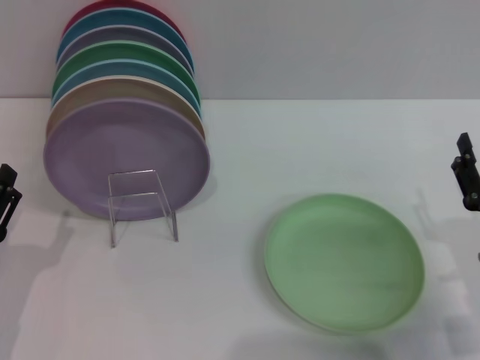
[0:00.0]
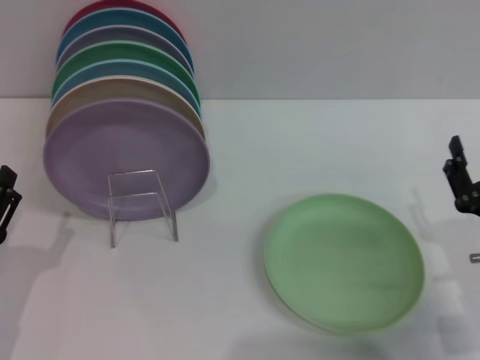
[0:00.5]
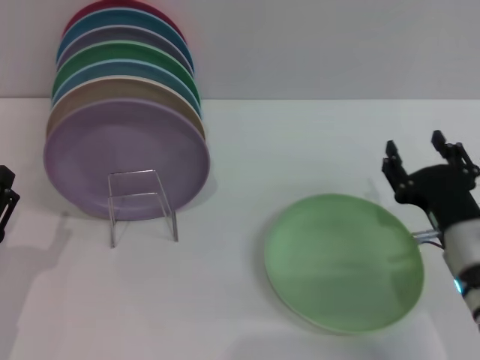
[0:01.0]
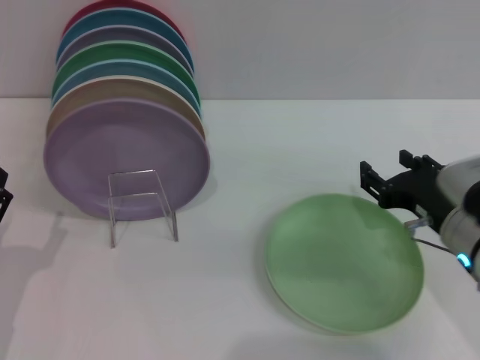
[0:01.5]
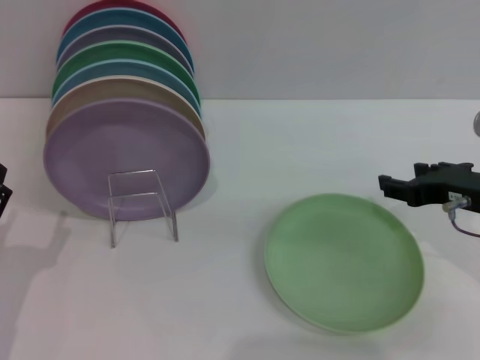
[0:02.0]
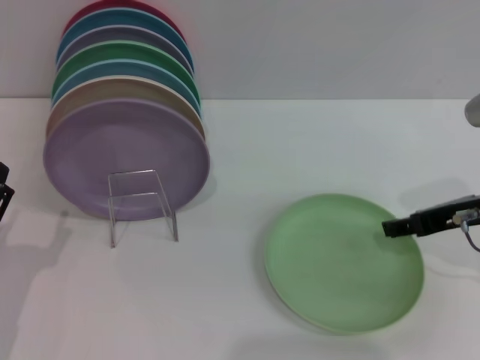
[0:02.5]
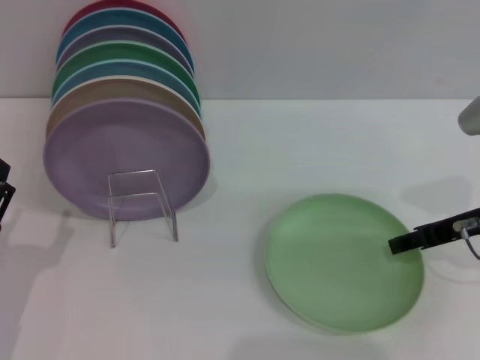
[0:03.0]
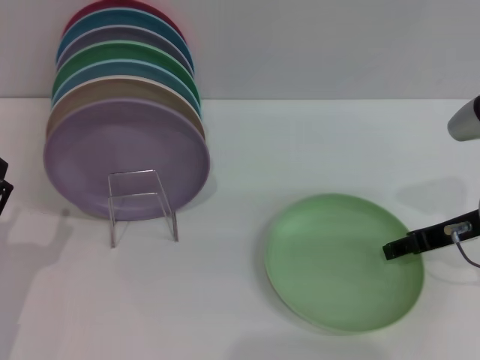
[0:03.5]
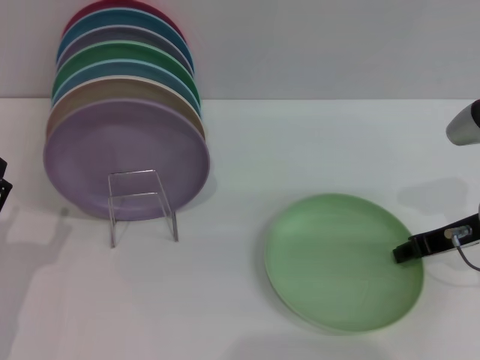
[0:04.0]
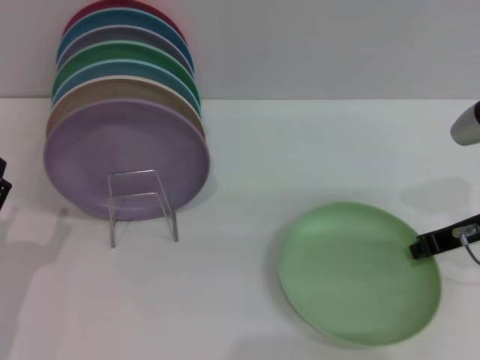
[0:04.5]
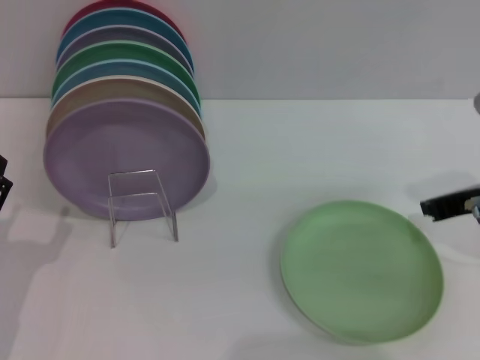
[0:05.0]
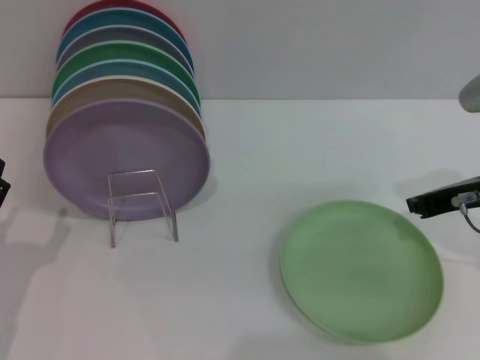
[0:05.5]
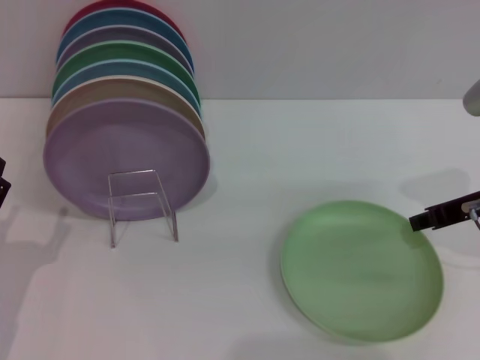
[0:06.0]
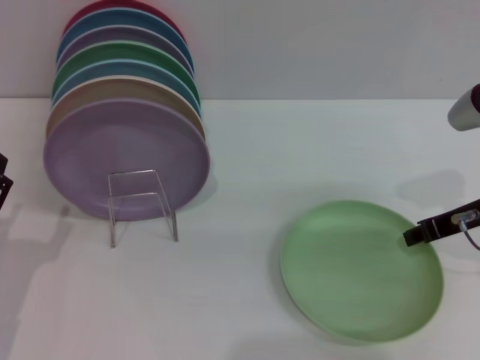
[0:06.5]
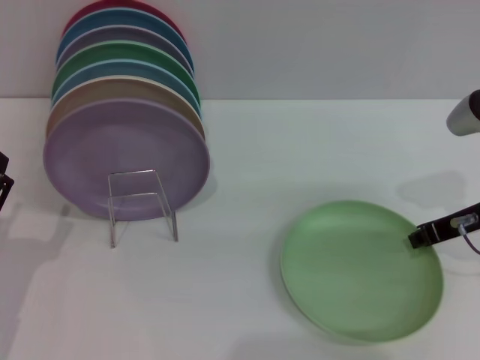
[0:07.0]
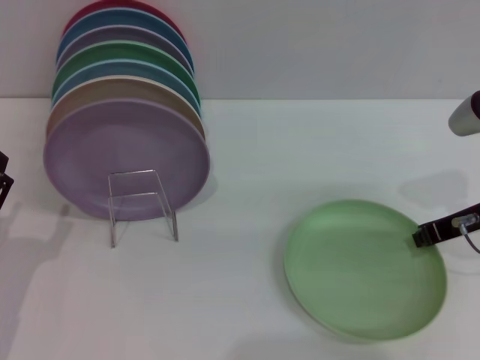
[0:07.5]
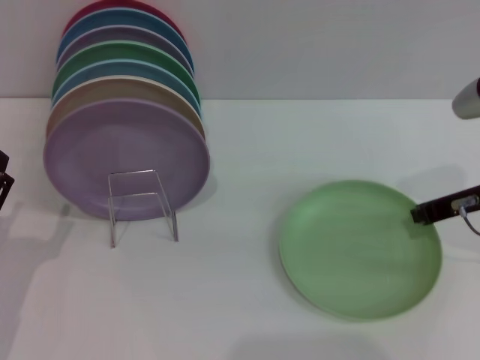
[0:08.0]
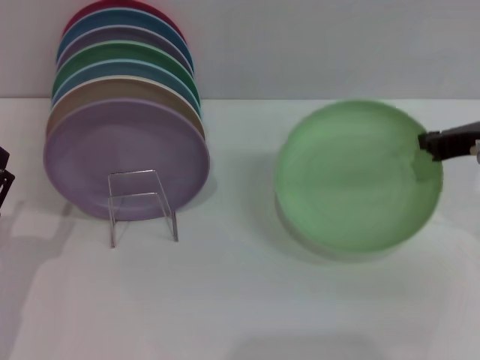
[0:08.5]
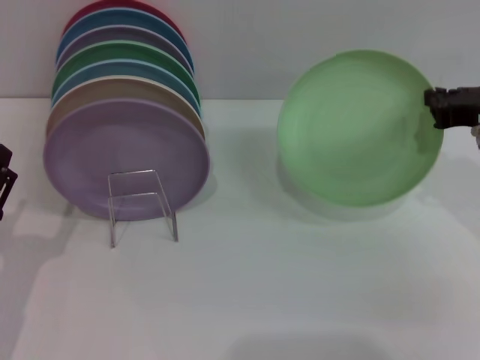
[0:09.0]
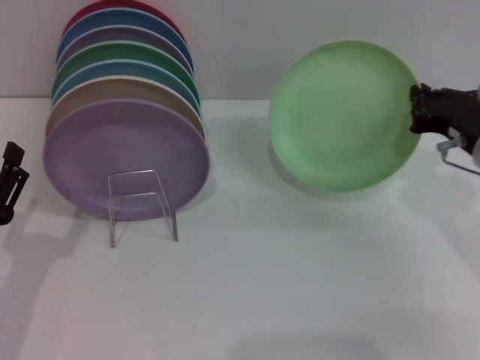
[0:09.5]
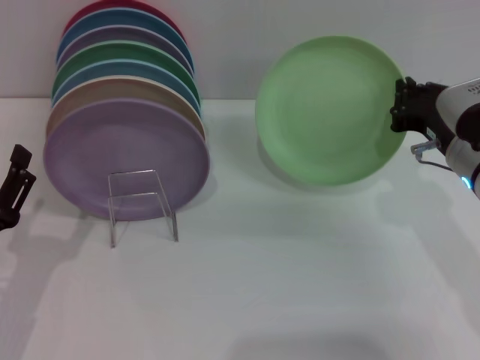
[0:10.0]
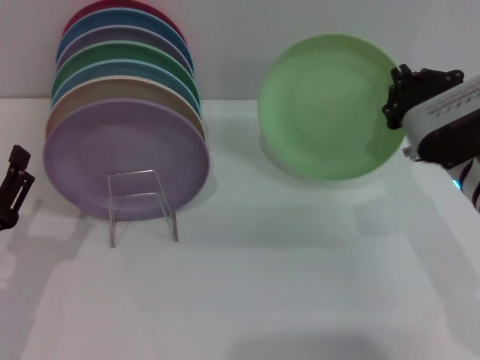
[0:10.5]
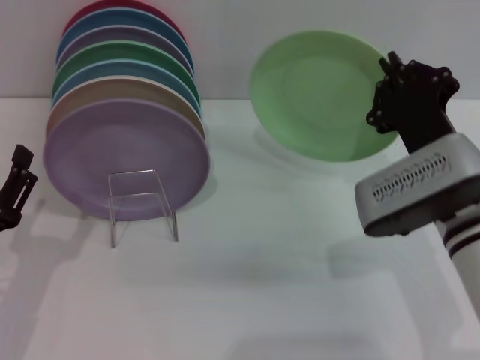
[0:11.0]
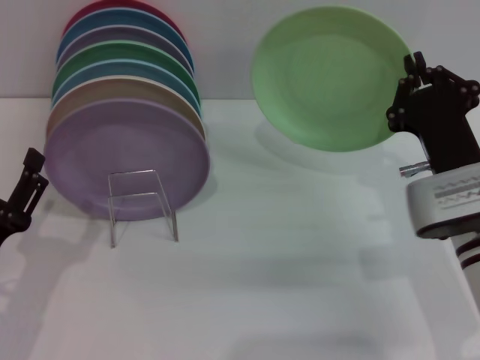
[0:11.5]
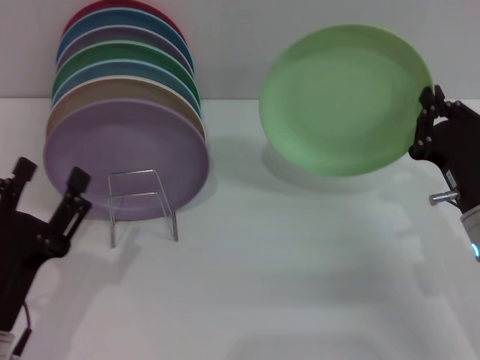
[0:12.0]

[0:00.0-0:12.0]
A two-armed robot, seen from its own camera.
Task of the whole recording: Grip the plate with one hand, pass it to the other, then set it on the shelf.
Step, 0:00.0 to 0:08.5: Pick up the plate with the right gripper.
0:00.0 to 0:02.0: The right gripper travels upward and forward by roughly 15 cm.
0:04.0 to 0:06.0: The right gripper closes, then opens again.
0:06.0 to 0:08.0: The right gripper closes.
0:10.0 to 0:12.0: The right gripper moves downward, some 5 cm.

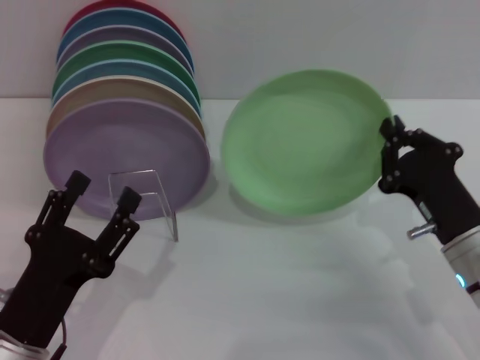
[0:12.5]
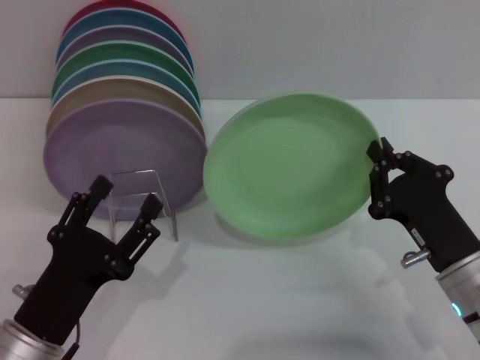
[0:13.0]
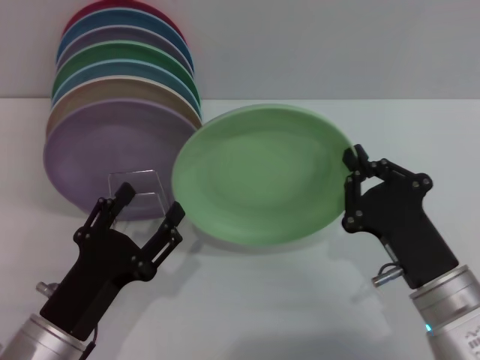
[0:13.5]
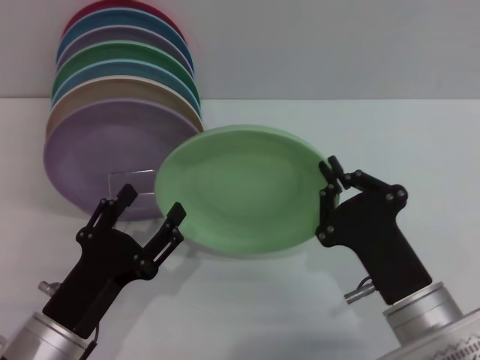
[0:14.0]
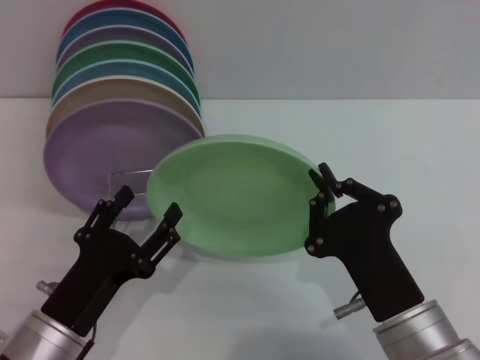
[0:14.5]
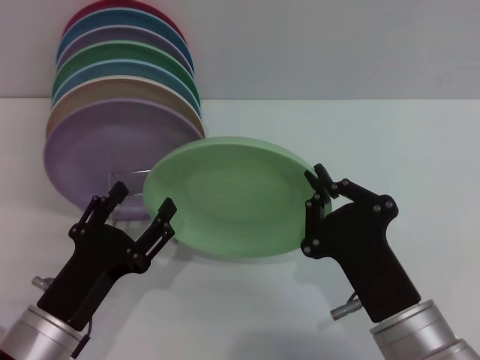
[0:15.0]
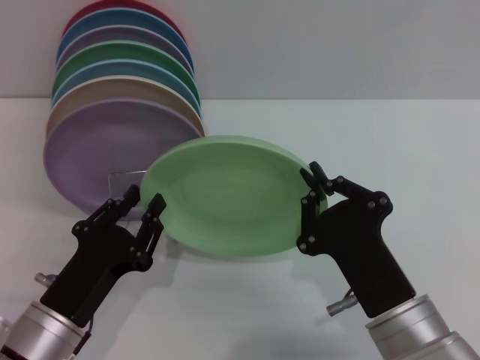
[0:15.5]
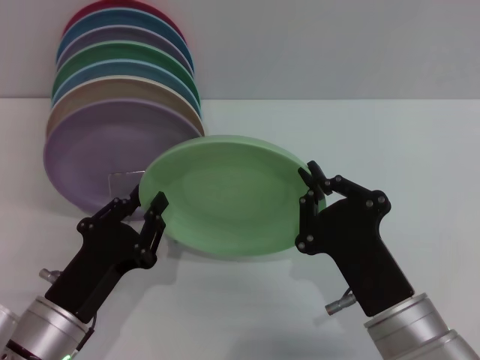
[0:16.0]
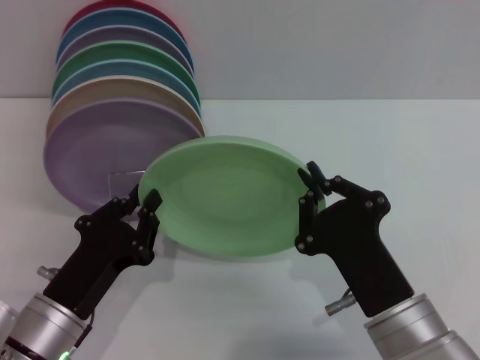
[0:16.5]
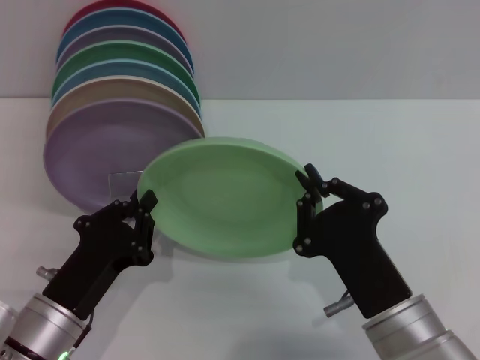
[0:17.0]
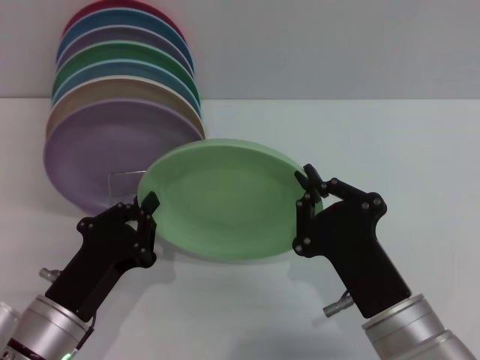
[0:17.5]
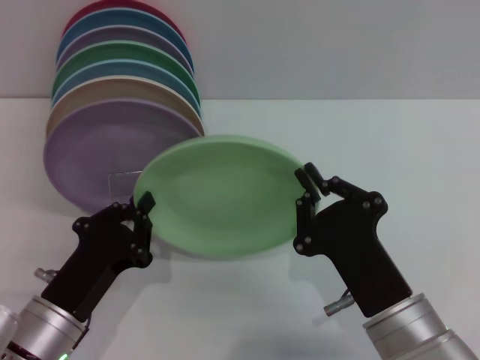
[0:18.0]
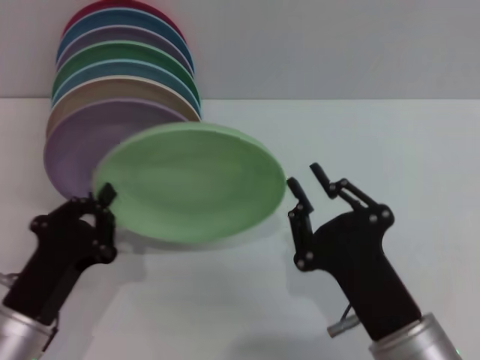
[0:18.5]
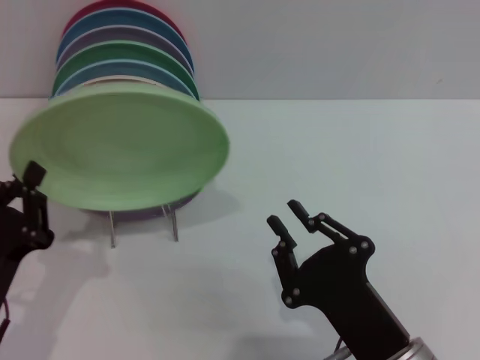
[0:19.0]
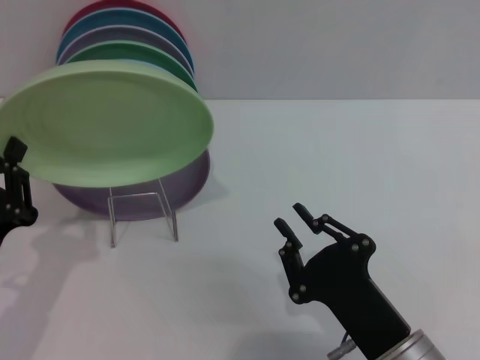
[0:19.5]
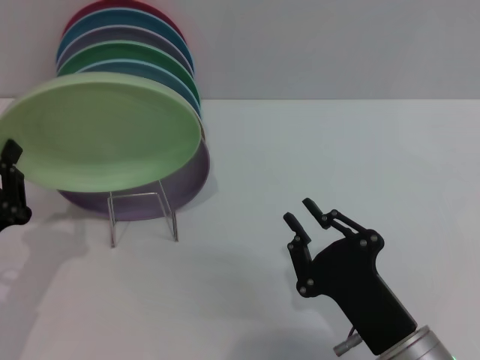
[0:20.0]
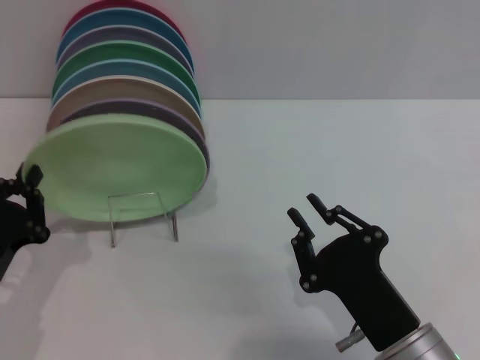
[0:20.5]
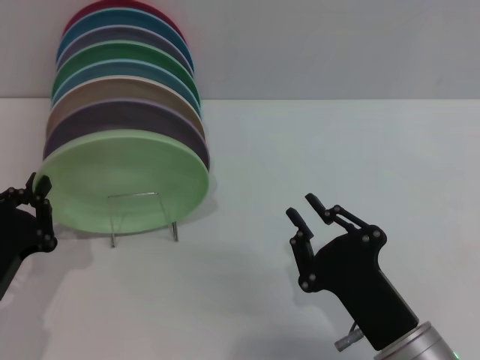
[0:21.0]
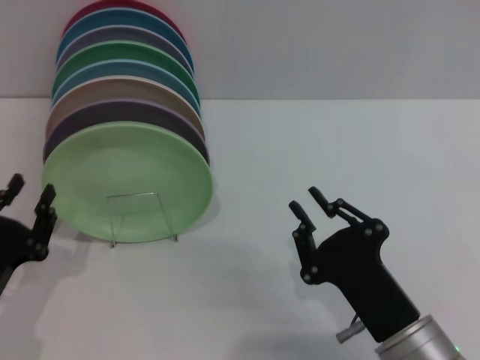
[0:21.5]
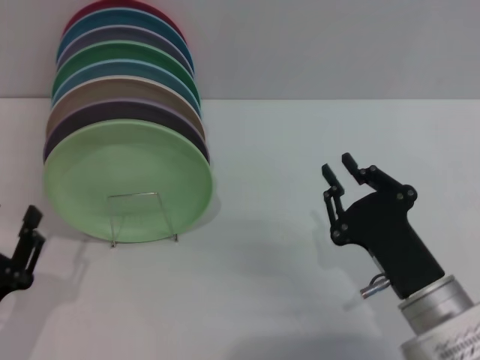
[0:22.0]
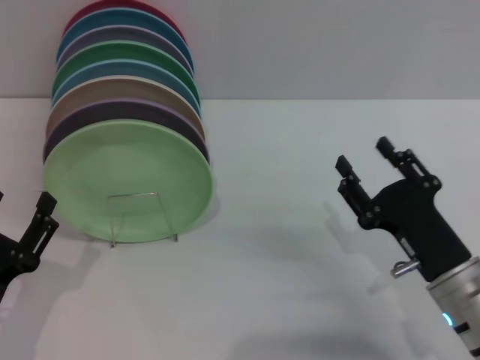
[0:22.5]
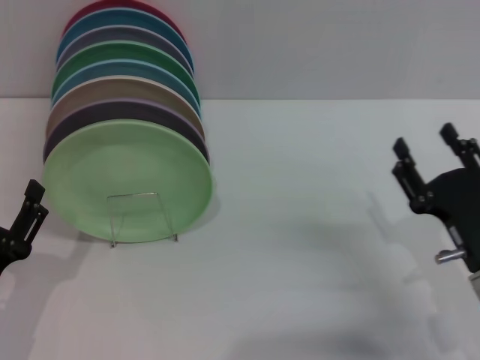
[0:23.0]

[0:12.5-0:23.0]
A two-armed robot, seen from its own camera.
Task of the whole recording: Grip the plate with one hand, pass it to the other, then set it on the shelf.
Step, 0:12.5 to 0:18.5: Pass the plate from the right gripper to the left gripper.
Step, 0:19.0 to 0:21.5: Place the plate on the shelf with the left gripper.
0:12.5 to 0:14.5: The right gripper shifts roughly 15 cm to the left and backward.
0:14.5 to 0:16.5: The left gripper closes its fingers.
0:16.5 to 0:19.0: The left gripper heads to the left, covering about 5 cm.
0:21.0 to 0:23.0: The right gripper travels to the right and forward by about 10 cm, and opens its fingers; the left gripper opens its fingers.
